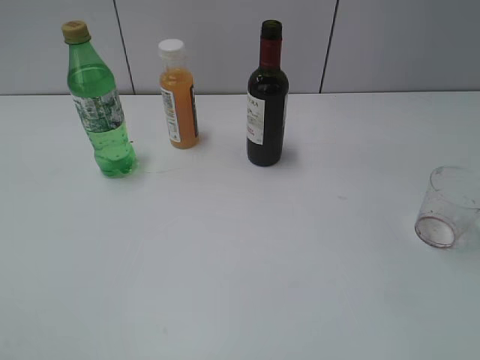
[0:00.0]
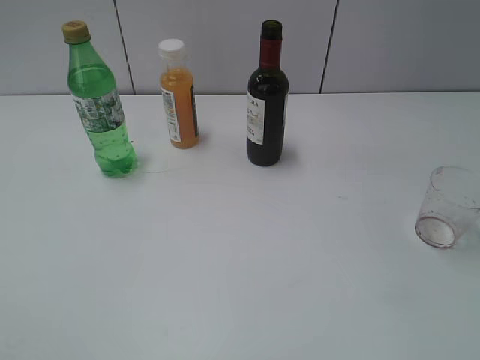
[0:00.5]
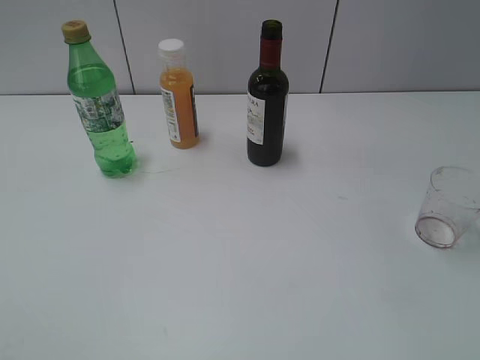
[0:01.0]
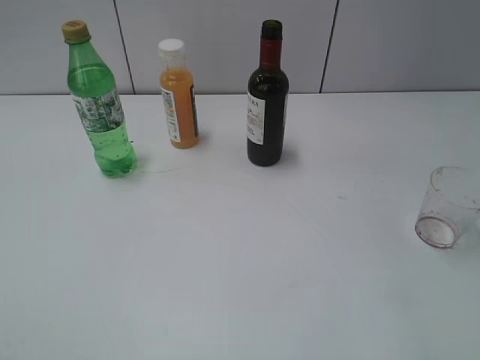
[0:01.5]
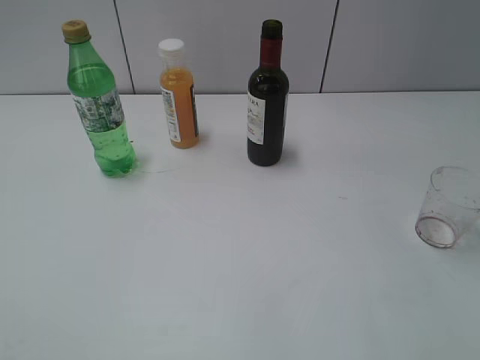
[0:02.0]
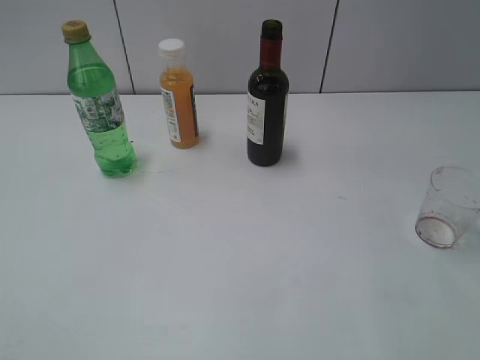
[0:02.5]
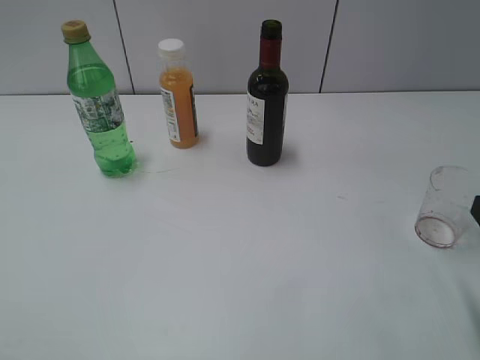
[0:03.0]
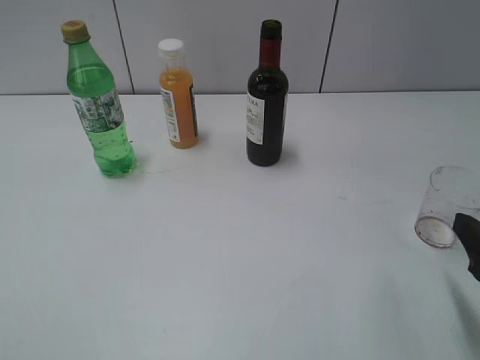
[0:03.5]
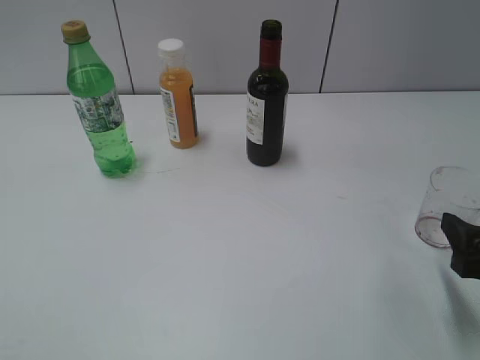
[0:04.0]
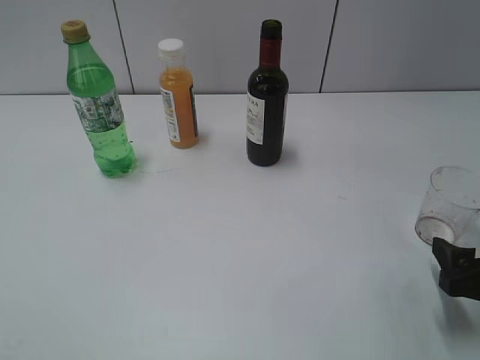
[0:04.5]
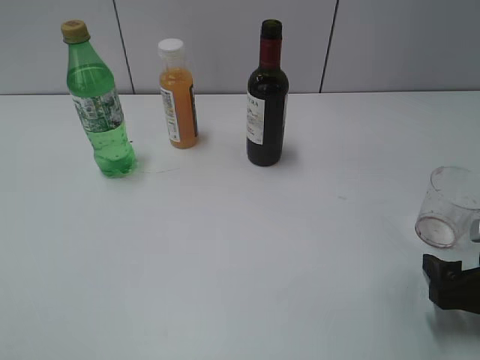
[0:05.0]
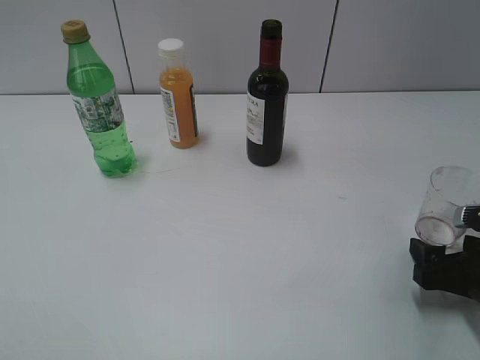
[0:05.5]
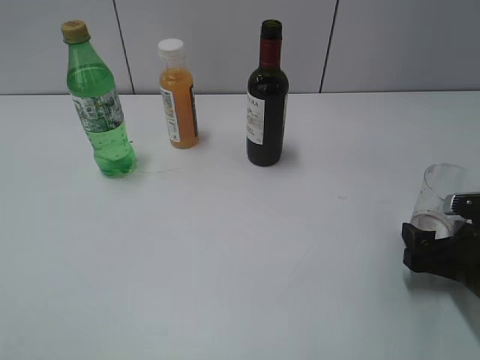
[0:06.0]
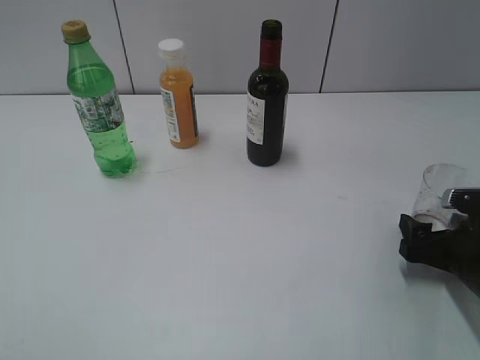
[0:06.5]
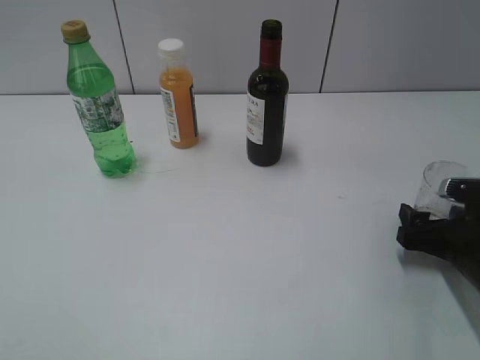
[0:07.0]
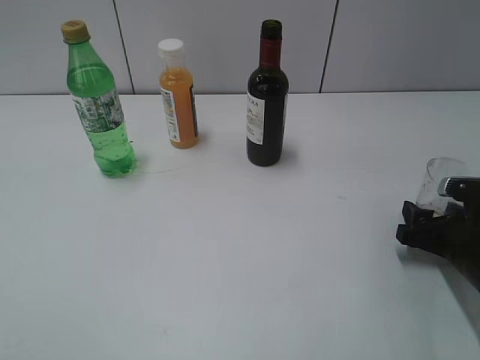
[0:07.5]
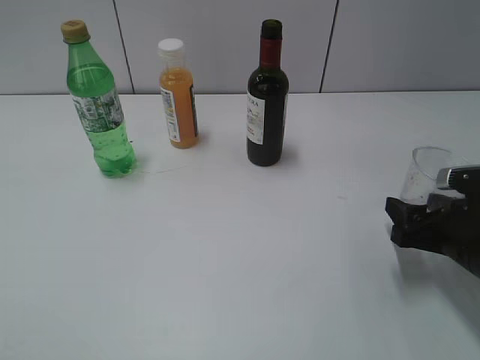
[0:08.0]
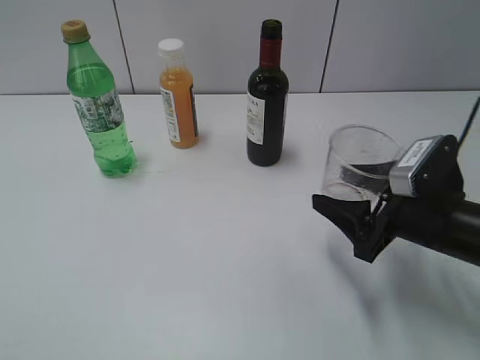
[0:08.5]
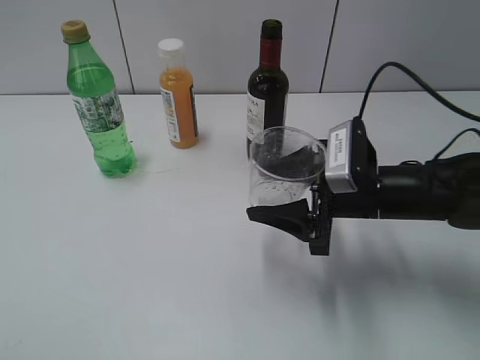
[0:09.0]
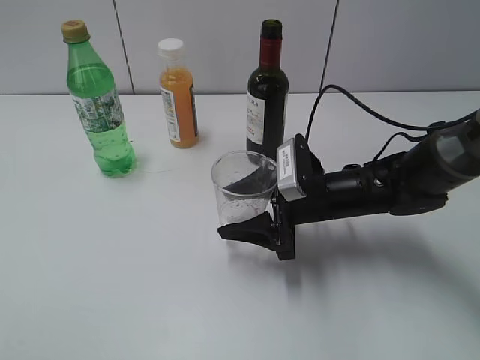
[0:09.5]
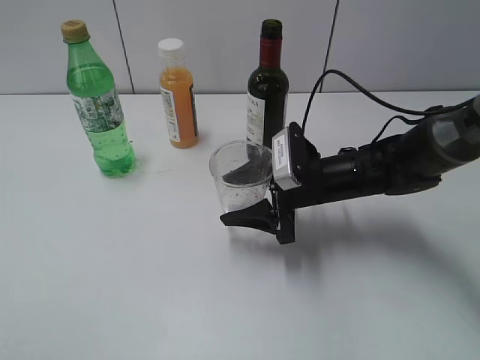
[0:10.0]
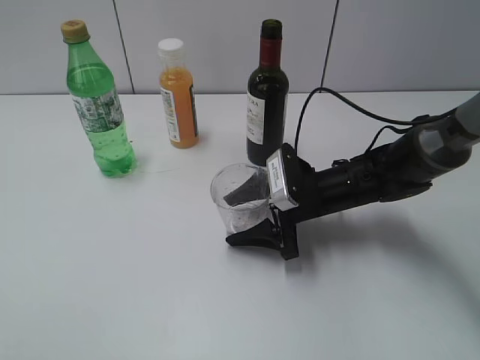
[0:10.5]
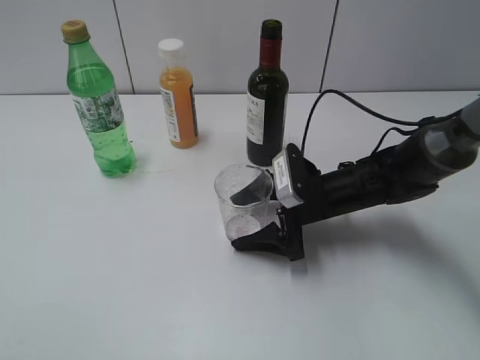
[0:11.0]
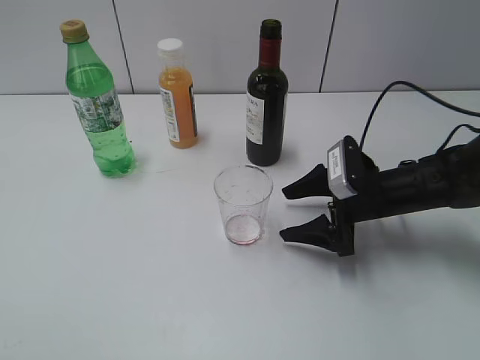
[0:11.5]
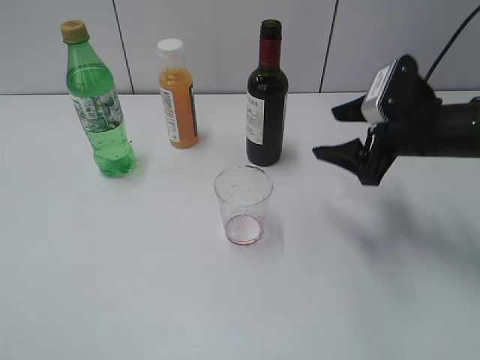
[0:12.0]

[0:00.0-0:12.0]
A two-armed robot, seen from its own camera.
Step, 0:01.0 to 0:07.5: Grasp the transparent cup with right gripper.
Step, 0:08.0 to 0:11.0: Place the transparent cup on the table with right gripper.
0:02.0 to 0:04.0: The right gripper goes about 15 cm downward.
0:04.0 to 0:06.0: The right gripper shifts approximately 5 cm downward.
0:06.0 to 0:08.0: The right gripper closes up.
0:08.0 to 0:10.0: The right gripper goes roughly 20 cm to the left and forward.
0:10.0 to 0:12.0: The right gripper moves to the right and upward, roughly 15 cm, and opens.

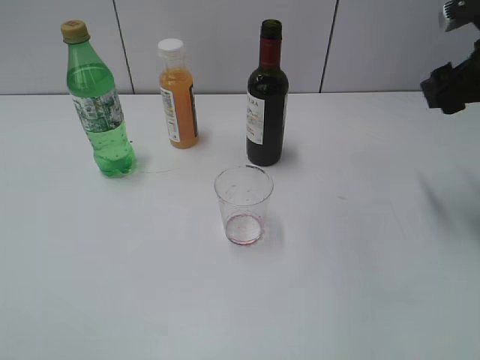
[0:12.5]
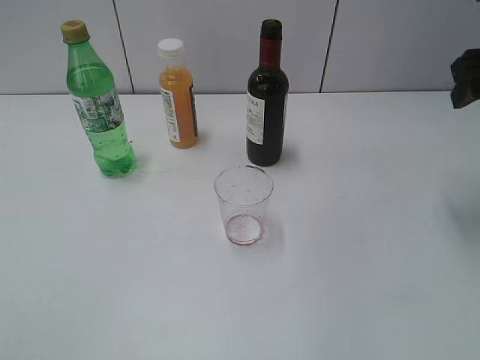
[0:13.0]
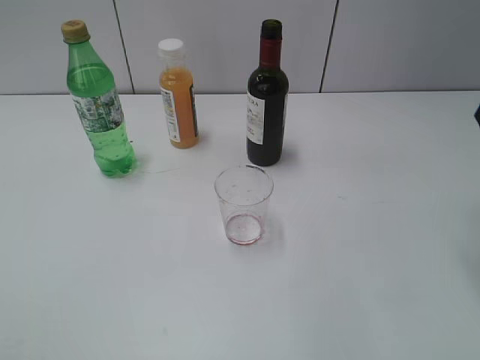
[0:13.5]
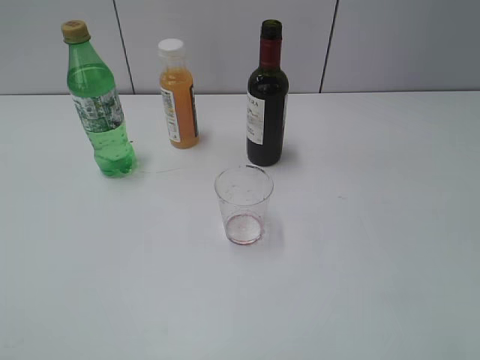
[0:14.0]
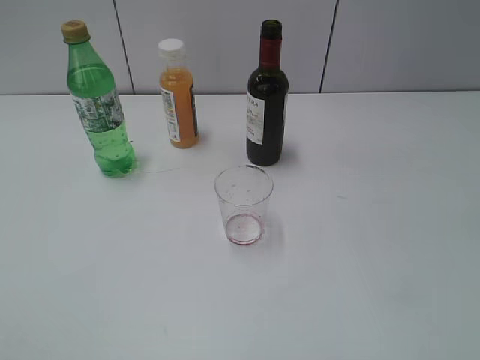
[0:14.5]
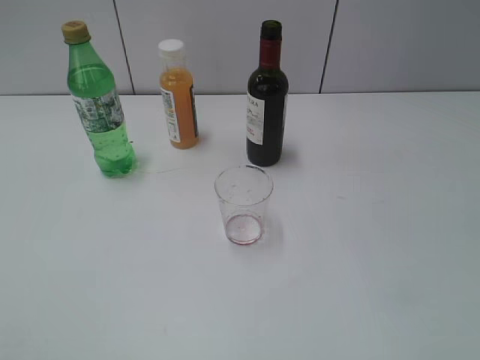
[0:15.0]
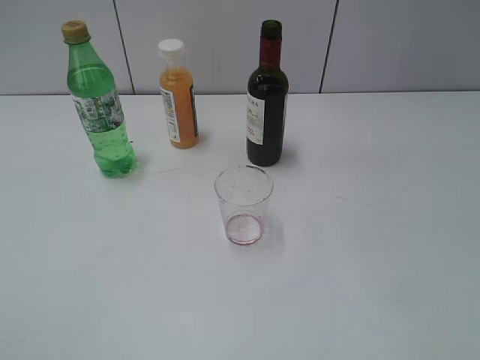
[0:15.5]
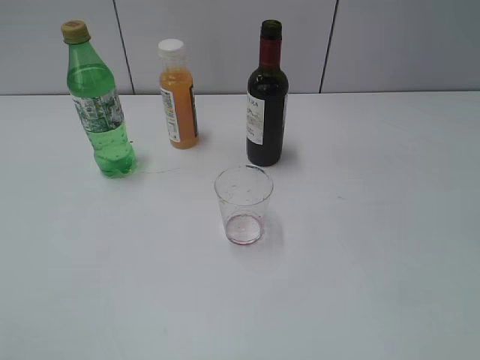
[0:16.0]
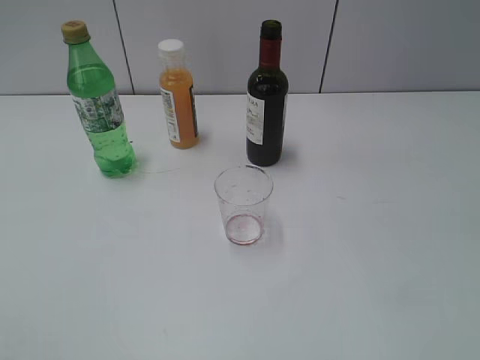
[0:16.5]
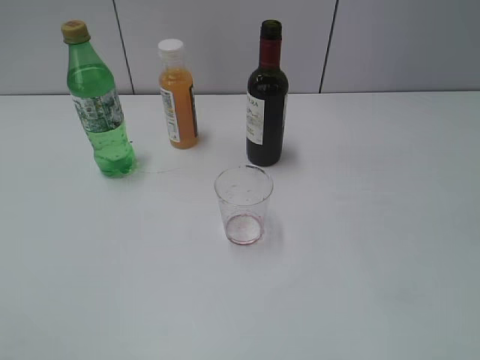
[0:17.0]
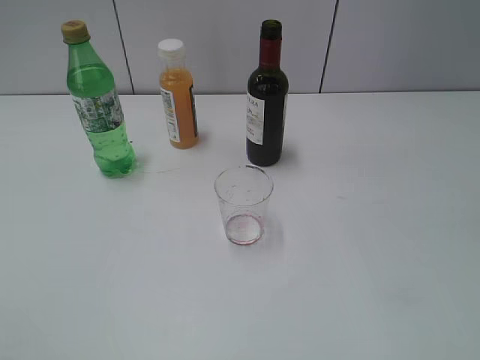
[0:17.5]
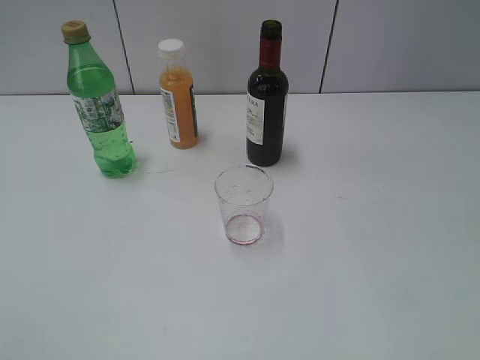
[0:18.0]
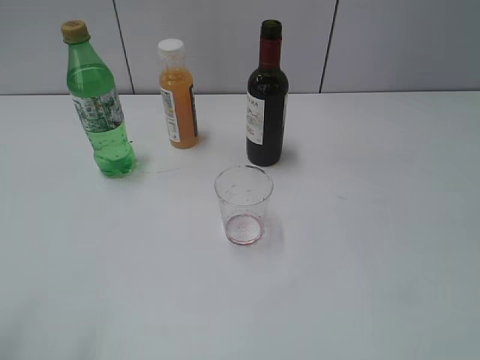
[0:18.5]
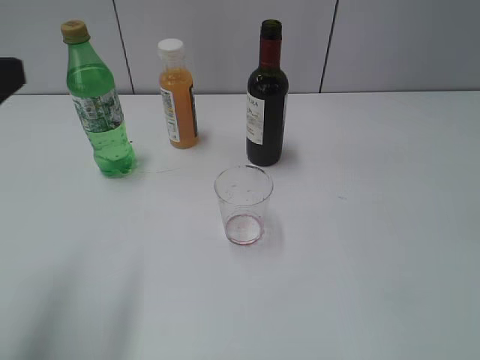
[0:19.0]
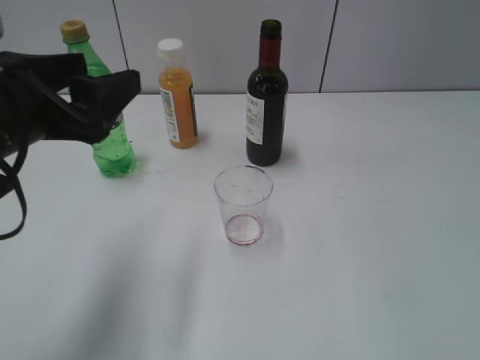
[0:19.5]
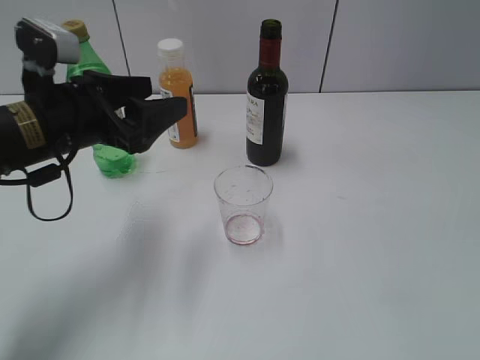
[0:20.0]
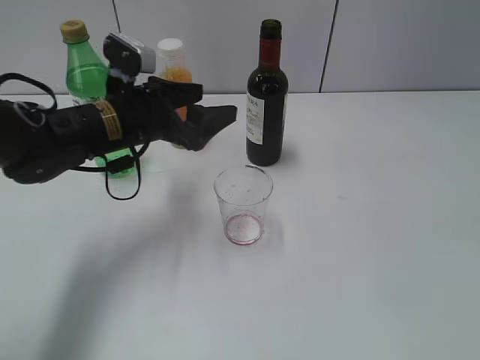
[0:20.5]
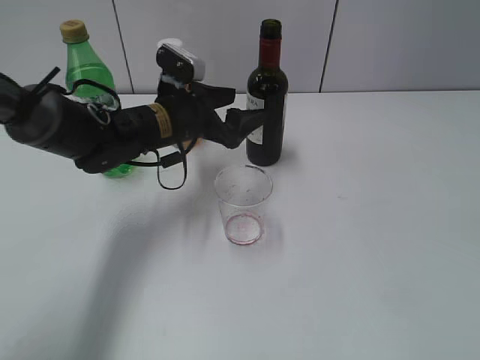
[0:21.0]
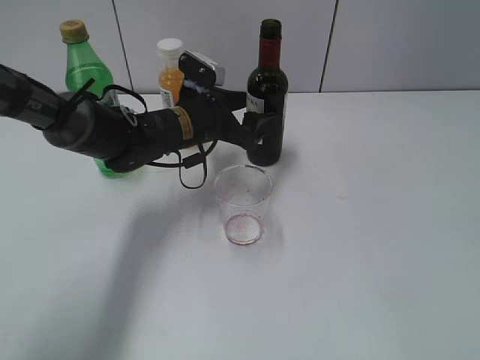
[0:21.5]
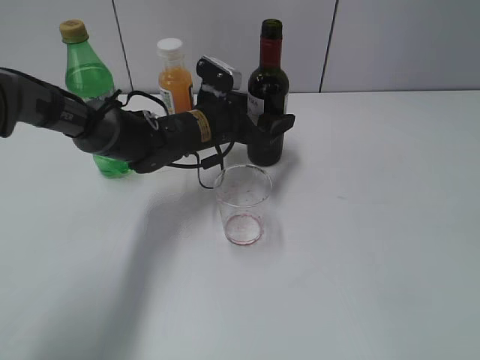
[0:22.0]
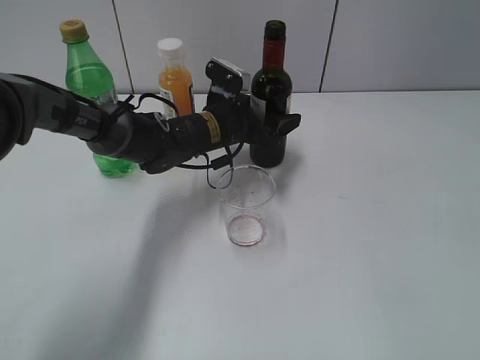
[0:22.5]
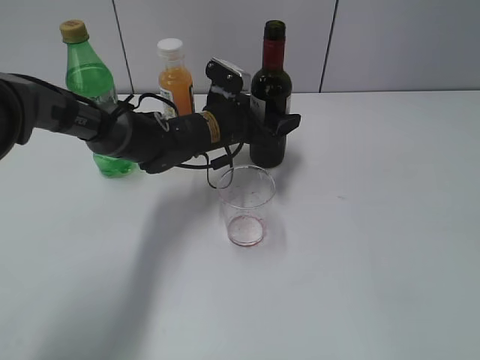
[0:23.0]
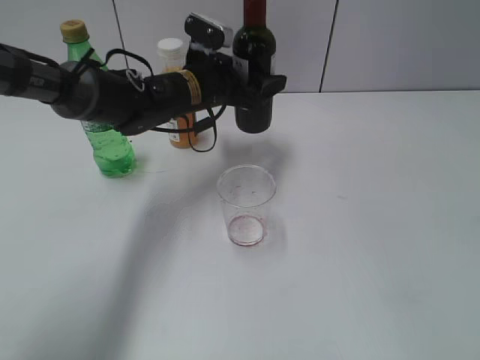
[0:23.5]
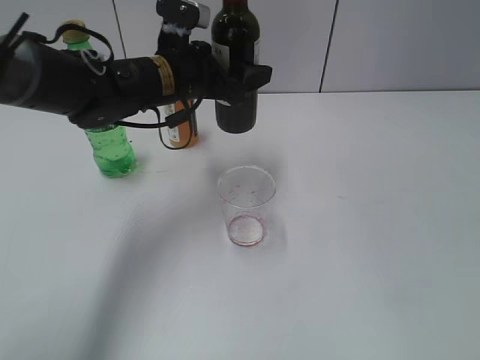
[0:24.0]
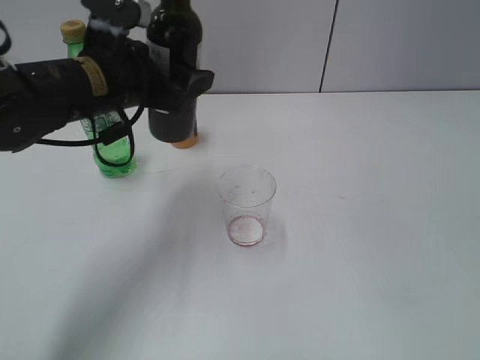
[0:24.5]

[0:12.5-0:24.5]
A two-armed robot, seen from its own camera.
Step, 0:12.5 to 0:22.5: Grasp the bottle with red wine with left gripper.
0:12.5 to 0:14.5: The right gripper is displaced backward by approximately 30 cm.
0:18.5 to 0:20.5: The left gripper heads forward, downward and to the right, covering about 35 cm, and closes, then opens again.
0:20.5 to 0:22.5: The left gripper heads to the right, forward and downward, covering some 15 cm, and closes.
0:22.5 to 0:24.5: The left gripper travels upward, to the left and backward by about 20 cm.

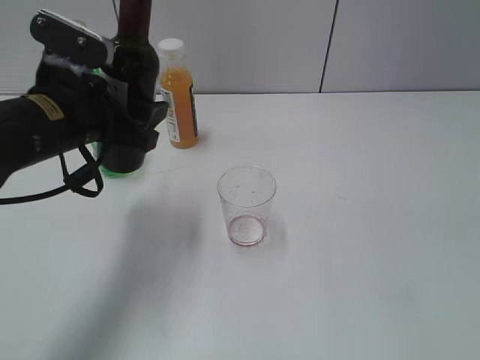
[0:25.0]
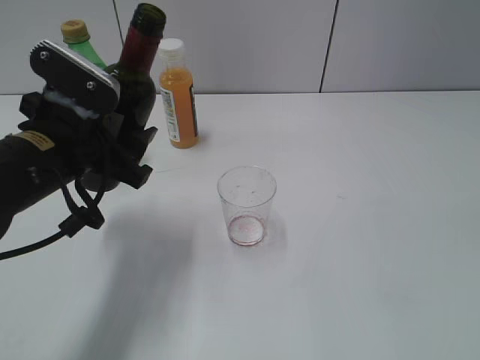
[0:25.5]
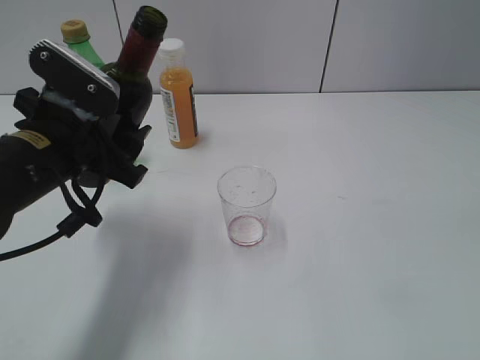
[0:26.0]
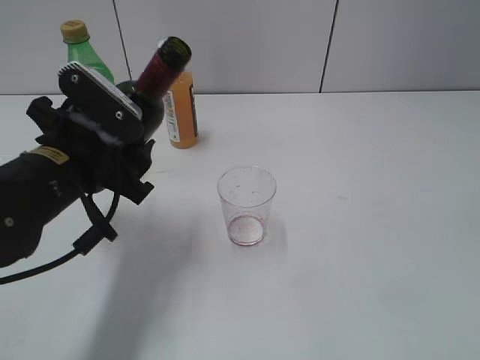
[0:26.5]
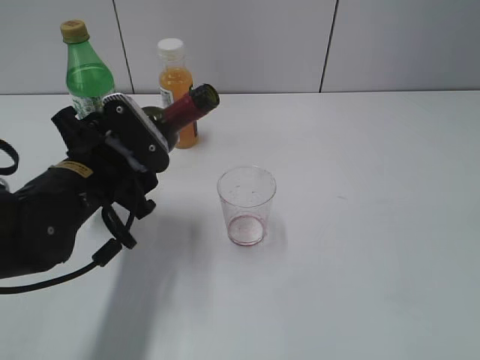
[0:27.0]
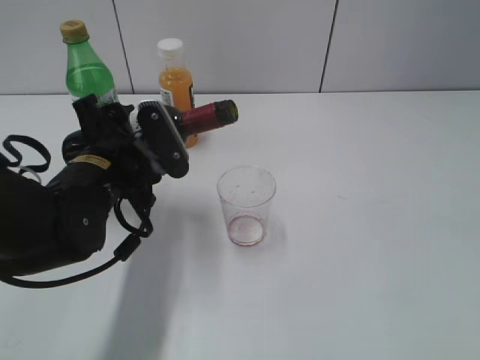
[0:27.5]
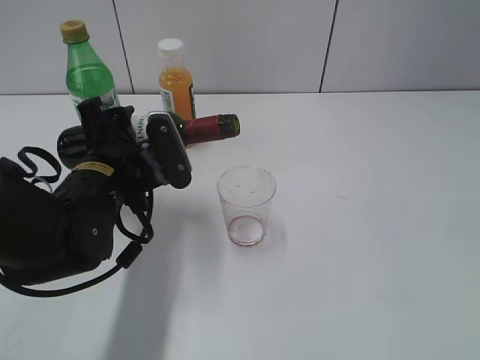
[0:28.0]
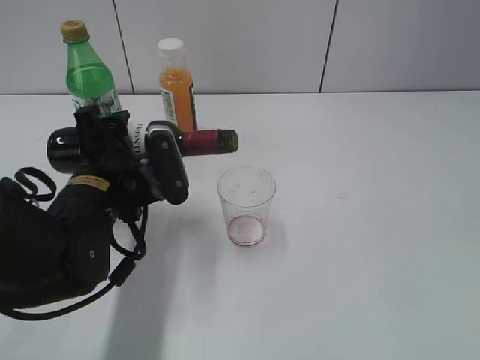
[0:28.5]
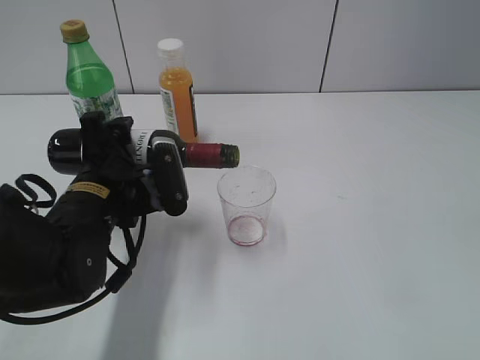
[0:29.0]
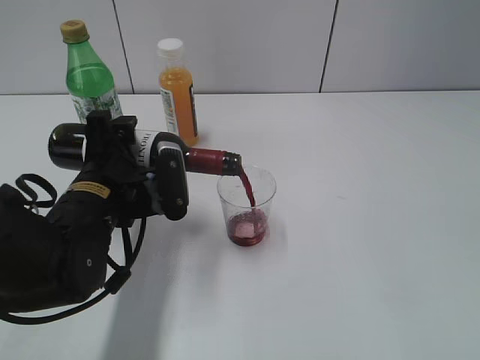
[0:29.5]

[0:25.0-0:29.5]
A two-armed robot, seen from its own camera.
0:25.0 to 0:27.0: The left gripper moves downward, roughly 5 cm.
